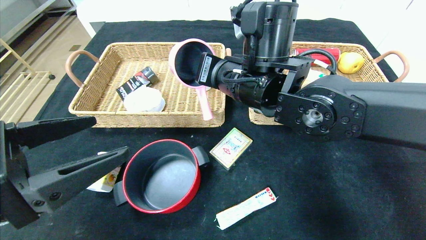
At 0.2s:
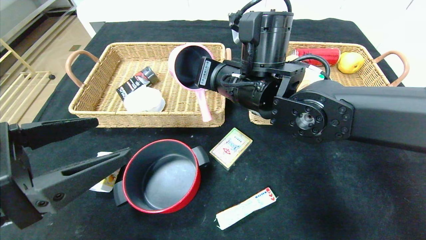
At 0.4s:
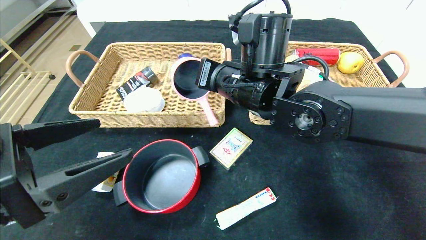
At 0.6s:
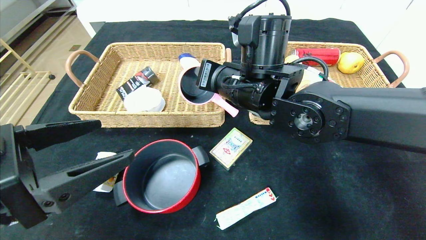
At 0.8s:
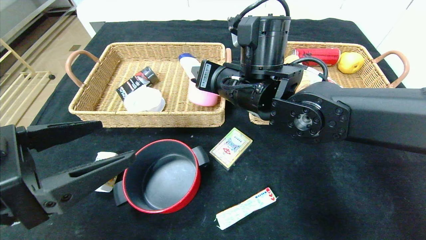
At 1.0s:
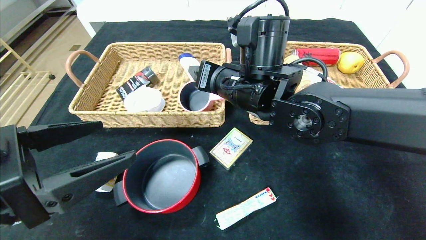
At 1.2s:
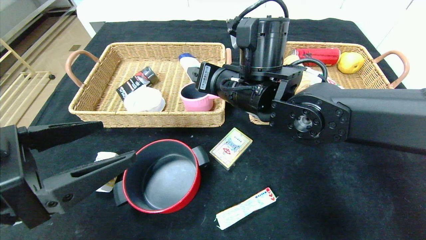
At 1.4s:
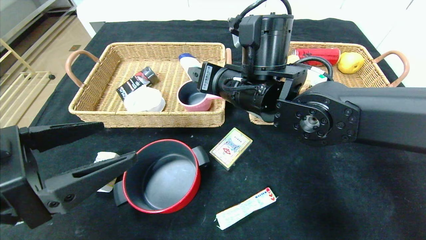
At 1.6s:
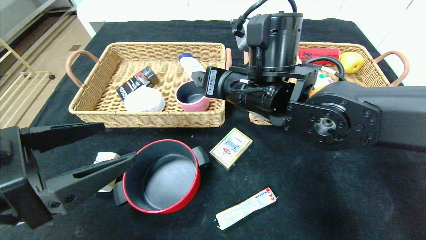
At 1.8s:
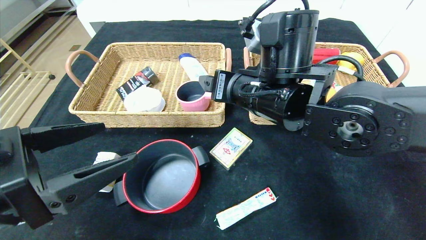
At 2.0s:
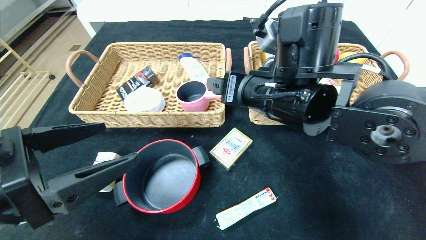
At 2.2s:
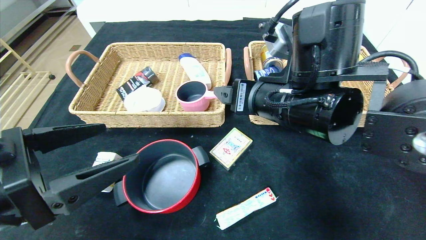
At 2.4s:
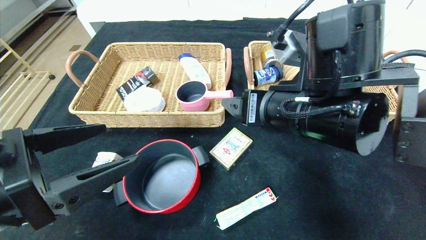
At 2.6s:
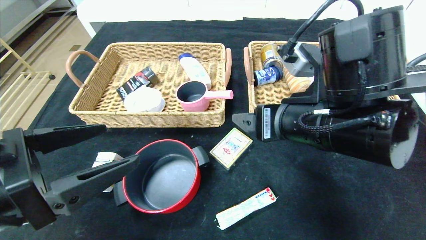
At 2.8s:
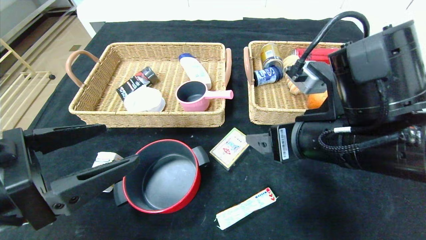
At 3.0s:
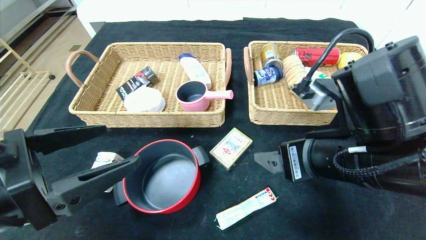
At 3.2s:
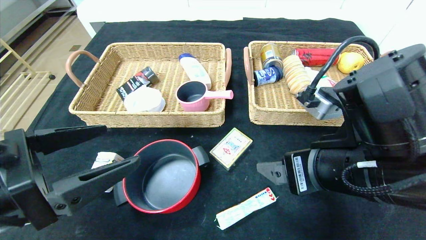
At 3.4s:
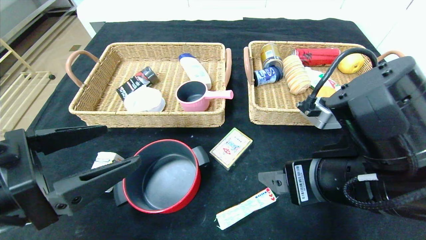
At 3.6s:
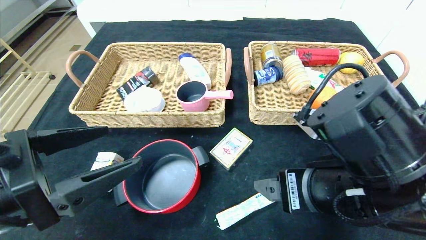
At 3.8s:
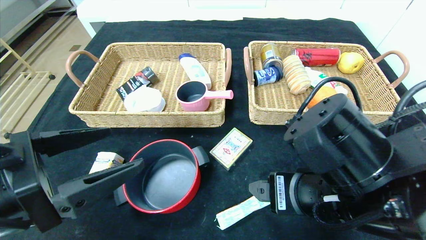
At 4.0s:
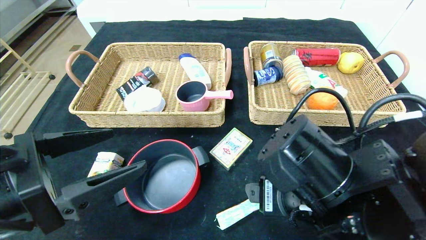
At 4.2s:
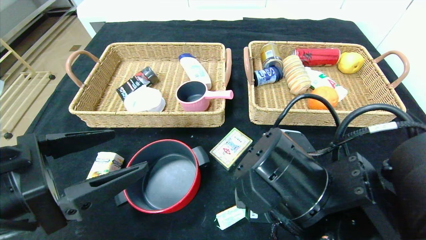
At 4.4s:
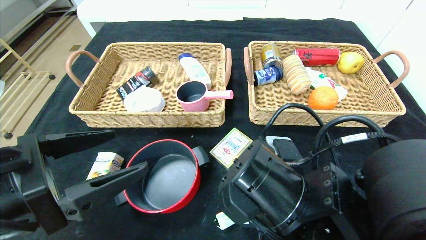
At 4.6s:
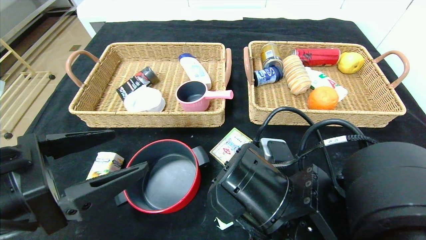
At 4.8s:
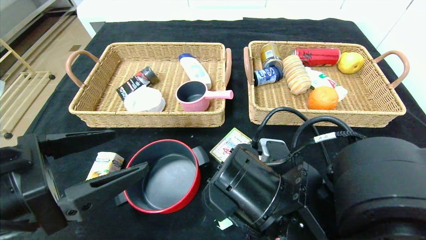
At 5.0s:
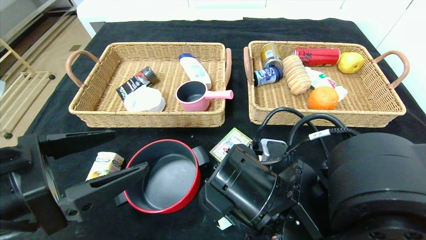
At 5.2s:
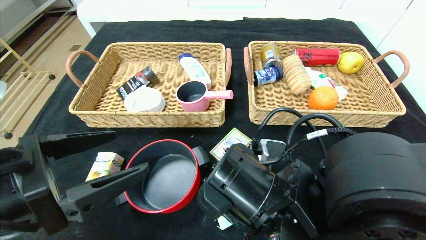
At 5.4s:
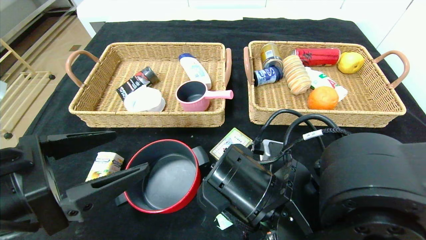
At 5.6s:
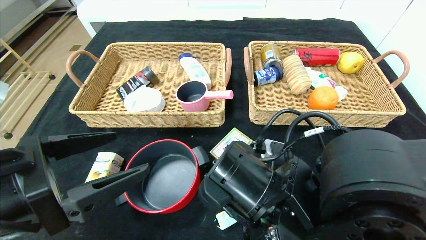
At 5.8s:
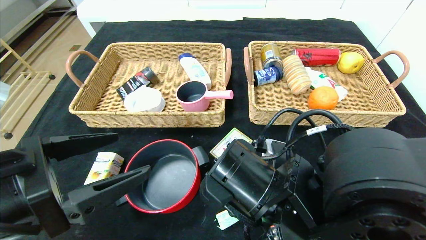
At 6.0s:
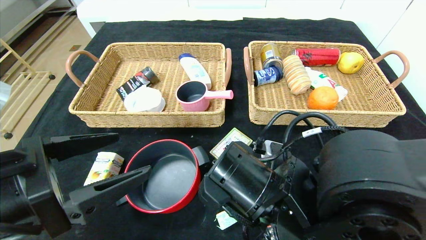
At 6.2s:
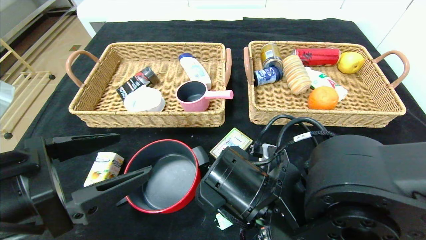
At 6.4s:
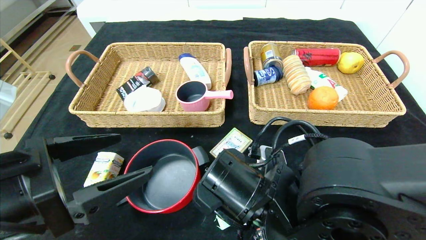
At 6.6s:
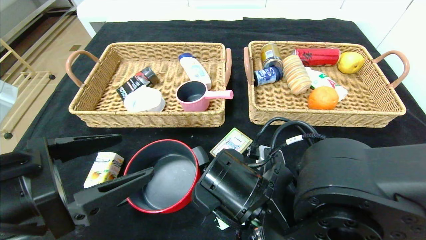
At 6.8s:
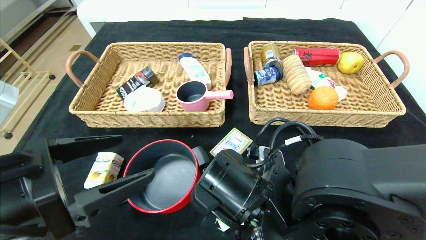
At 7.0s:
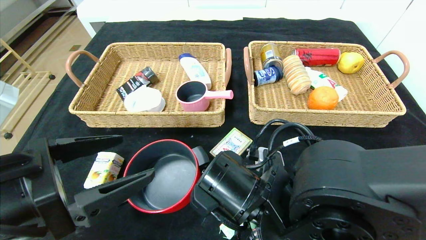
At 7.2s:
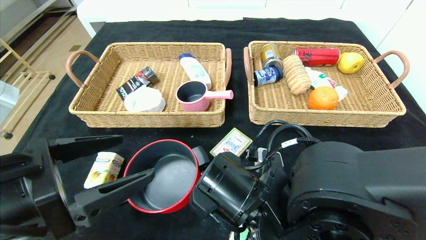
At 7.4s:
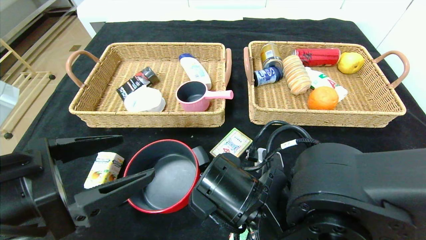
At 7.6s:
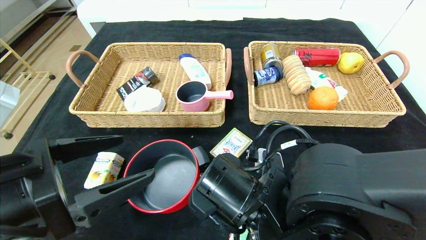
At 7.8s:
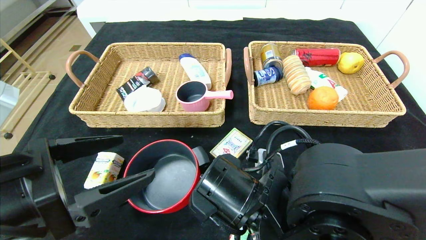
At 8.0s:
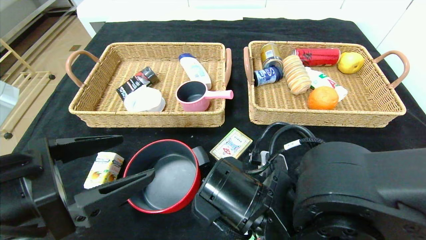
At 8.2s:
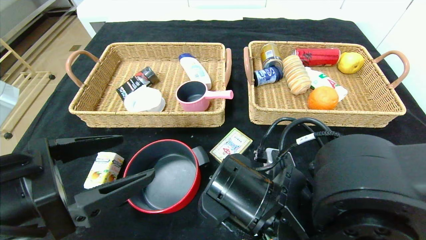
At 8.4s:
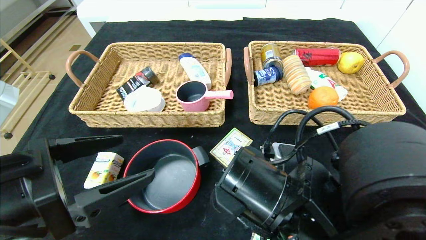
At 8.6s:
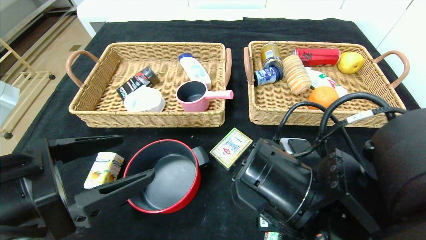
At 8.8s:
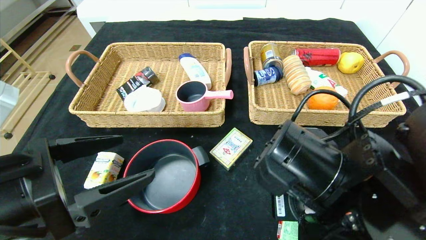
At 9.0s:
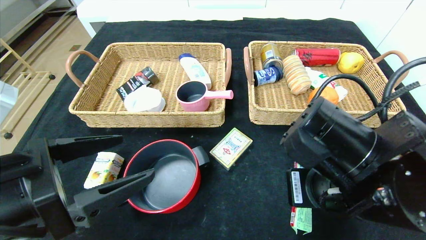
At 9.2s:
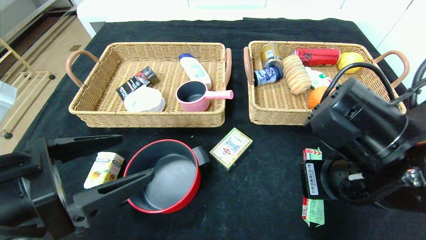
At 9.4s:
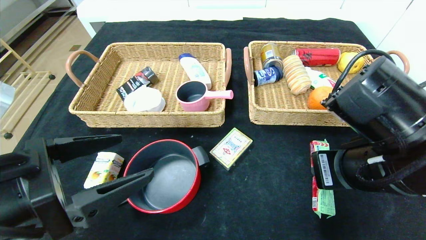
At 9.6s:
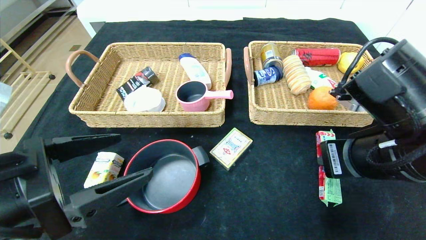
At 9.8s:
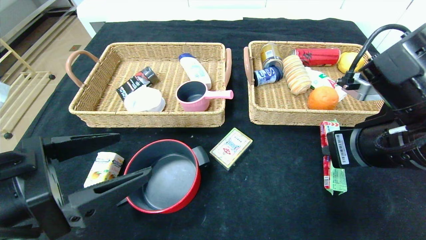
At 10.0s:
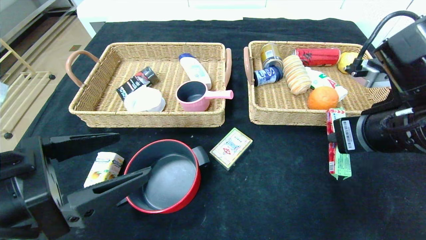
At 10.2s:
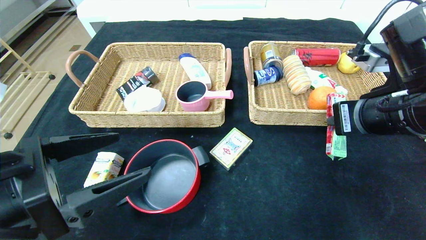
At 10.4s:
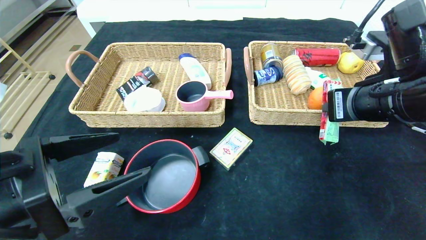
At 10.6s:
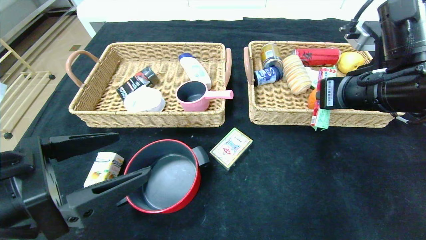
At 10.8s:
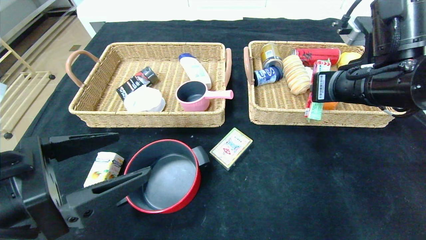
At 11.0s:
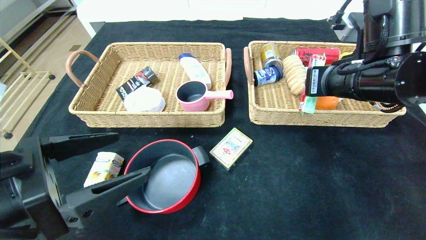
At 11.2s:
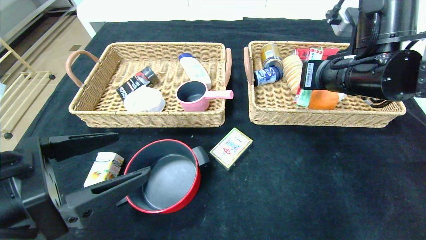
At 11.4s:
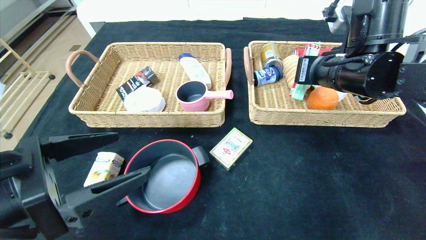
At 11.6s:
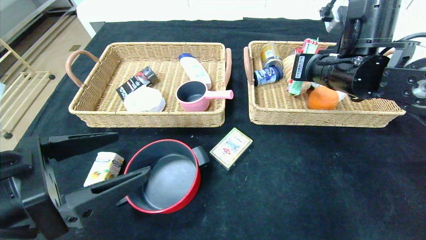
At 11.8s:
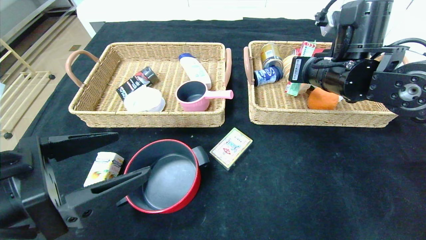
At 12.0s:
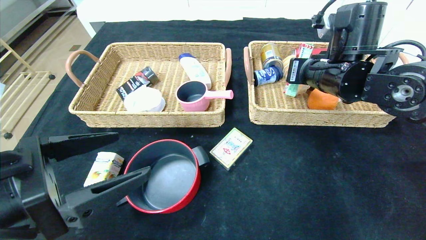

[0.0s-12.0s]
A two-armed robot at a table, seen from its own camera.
0.0s to 1.6s: The right gripper opens up.
1.6s to 3.0s: The right gripper travels backward and to the right by some 15 cm.
3.0s to 4.4s: The right gripper travels to the left and downward by approximately 10 cm.
4.4s to 6.0s: The grippers make only small movements.
6.0s to 7.6s: The right gripper closes.
7.6s to 9.0s: The right gripper travels to the right and upward by roughly 10 cm.
9.0s to 10.4s: The right gripper travels to the right, forward and upward by about 10 cm.
10.4s to 12.0s: The right gripper moves forward, approximately 10 cm.

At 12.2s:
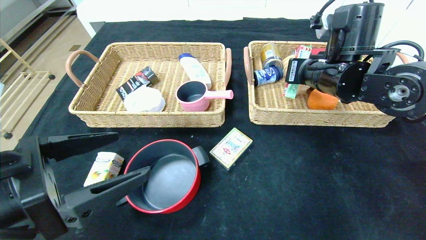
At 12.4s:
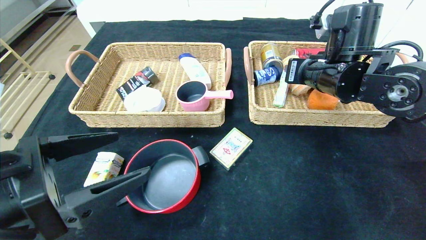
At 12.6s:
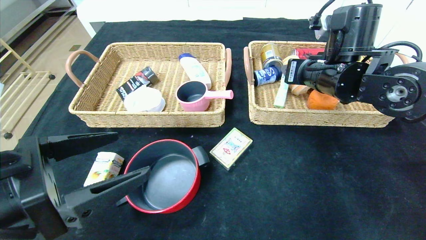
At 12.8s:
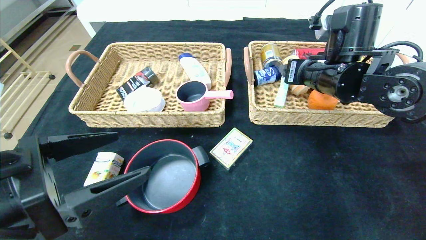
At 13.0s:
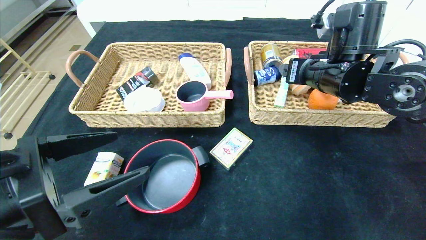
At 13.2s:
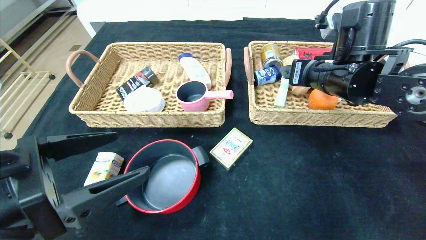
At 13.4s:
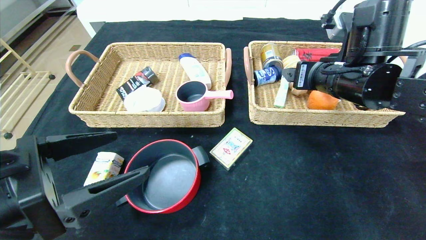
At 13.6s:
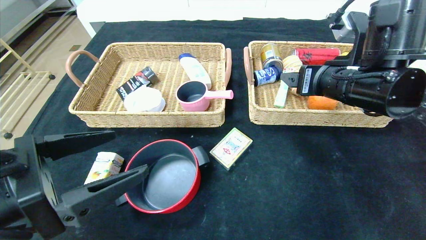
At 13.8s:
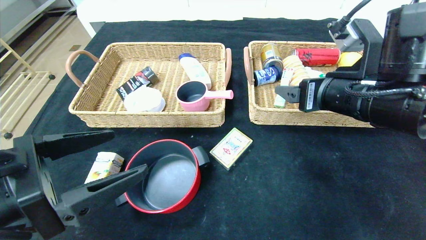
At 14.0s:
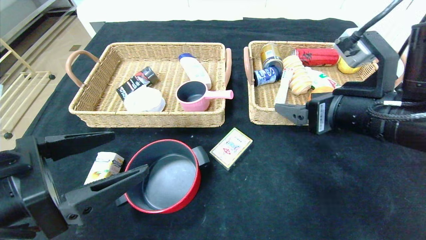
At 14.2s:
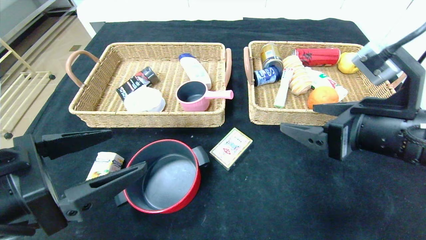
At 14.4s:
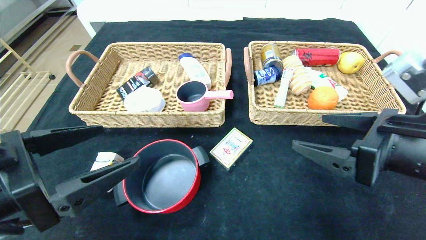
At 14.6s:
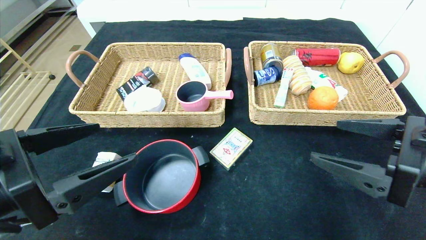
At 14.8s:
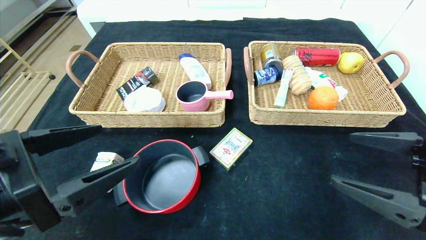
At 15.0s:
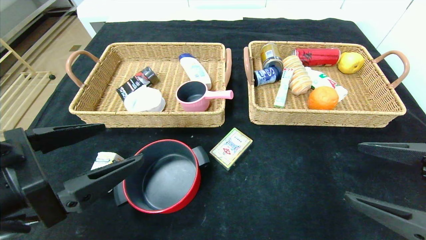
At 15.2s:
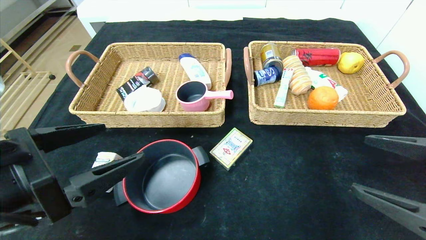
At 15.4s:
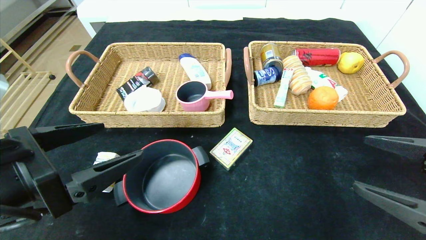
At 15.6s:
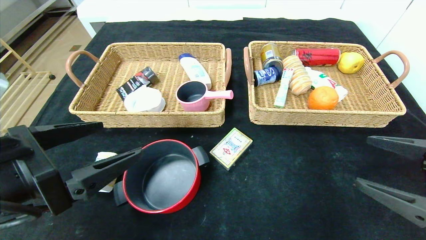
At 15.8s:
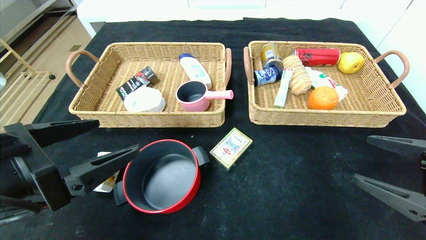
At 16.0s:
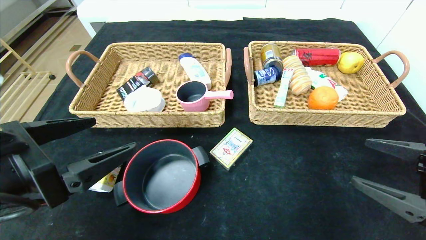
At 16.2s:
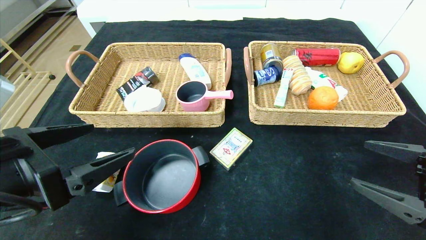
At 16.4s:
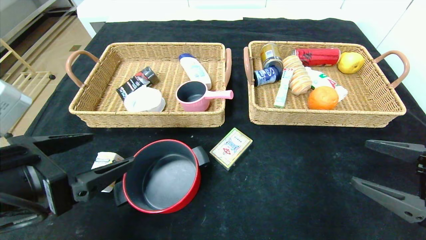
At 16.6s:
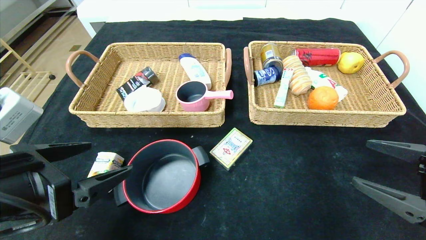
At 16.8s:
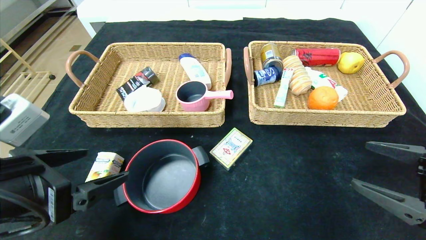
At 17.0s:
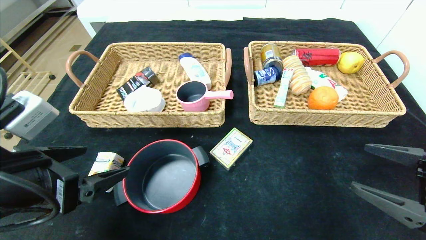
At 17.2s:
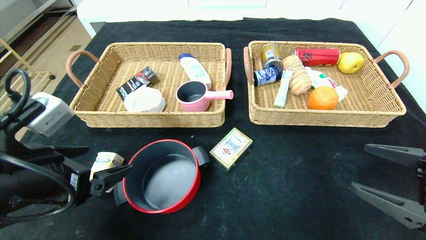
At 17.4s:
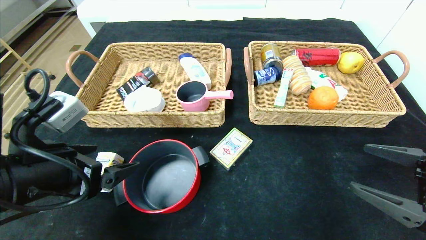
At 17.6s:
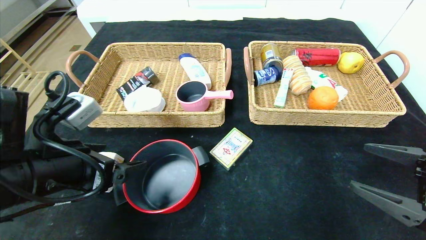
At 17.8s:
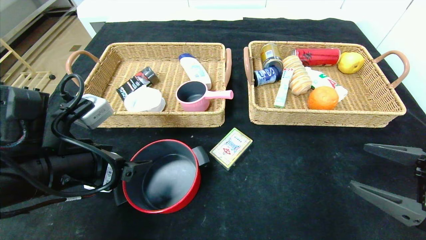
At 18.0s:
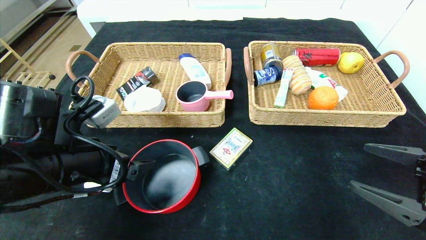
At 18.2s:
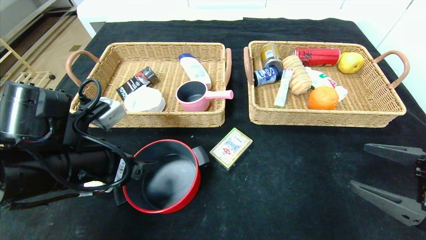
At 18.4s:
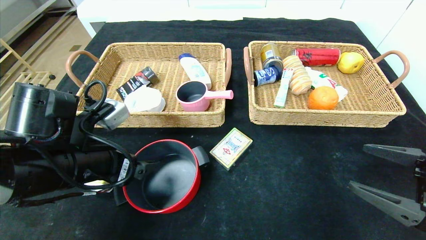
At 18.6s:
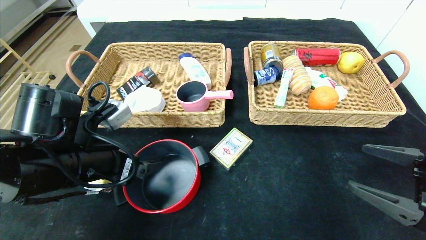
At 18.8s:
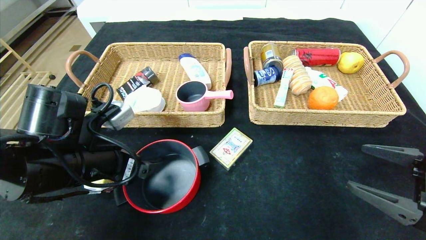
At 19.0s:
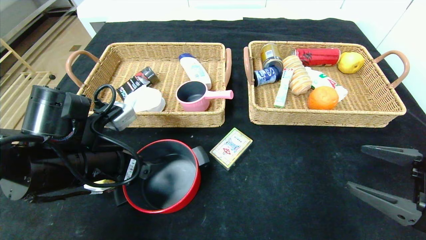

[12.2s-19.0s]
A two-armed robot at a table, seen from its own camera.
12.2s to 13.6s: The right gripper is displaced backward by about 5 cm, and opens up.
13.6s to 15.0s: The right gripper moves backward and to the right, some 20 cm.
15.0s to 16.2s: The right gripper shifts by about 5 cm.
16.2s to 17.6s: The left gripper moves forward, approximately 5 cm.
17.6s to 19.0s: The grippers move only a little.
